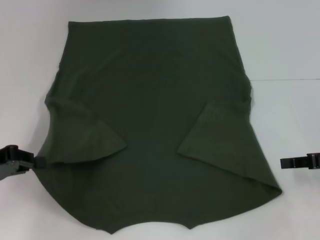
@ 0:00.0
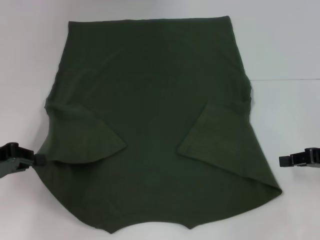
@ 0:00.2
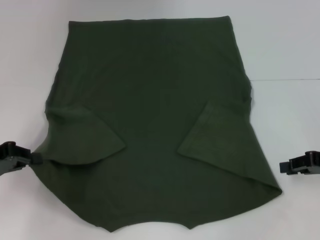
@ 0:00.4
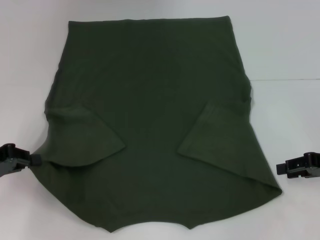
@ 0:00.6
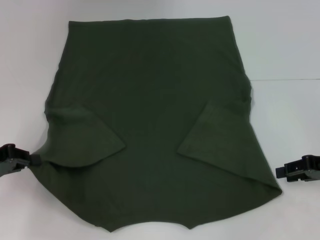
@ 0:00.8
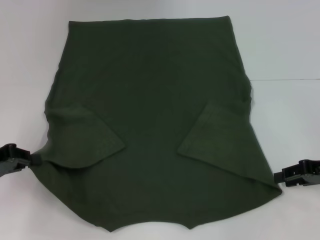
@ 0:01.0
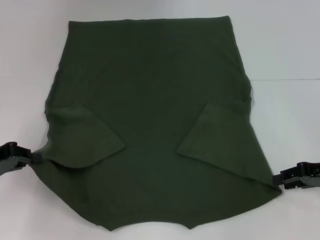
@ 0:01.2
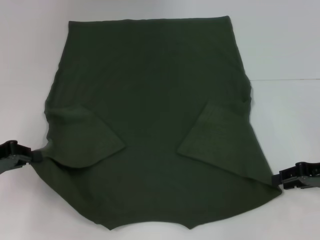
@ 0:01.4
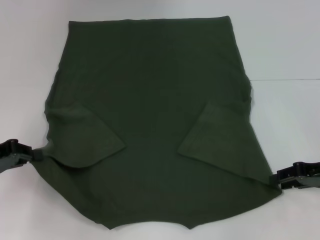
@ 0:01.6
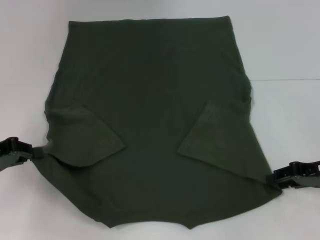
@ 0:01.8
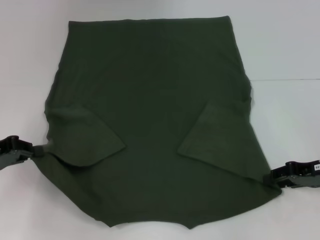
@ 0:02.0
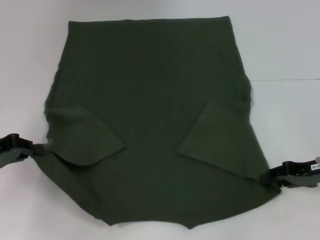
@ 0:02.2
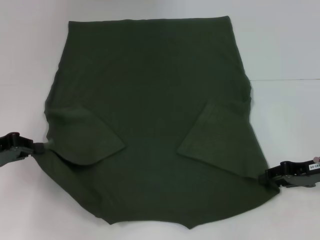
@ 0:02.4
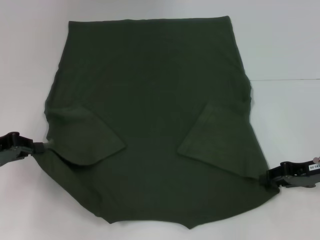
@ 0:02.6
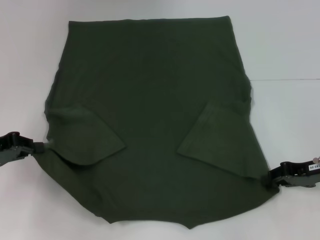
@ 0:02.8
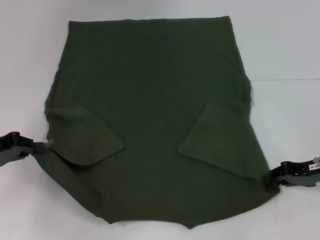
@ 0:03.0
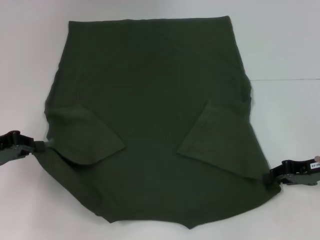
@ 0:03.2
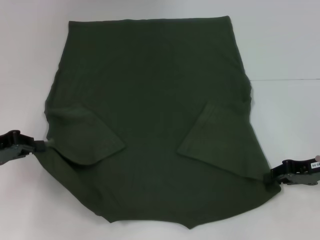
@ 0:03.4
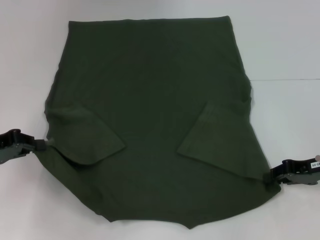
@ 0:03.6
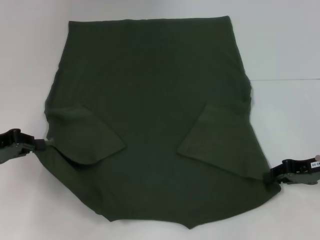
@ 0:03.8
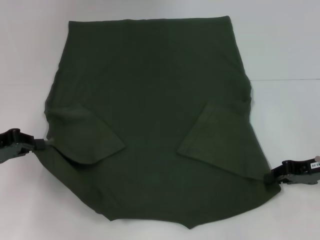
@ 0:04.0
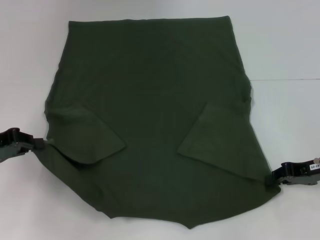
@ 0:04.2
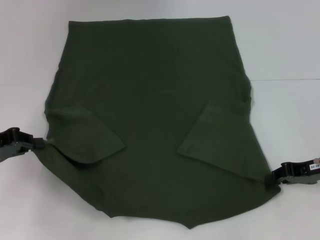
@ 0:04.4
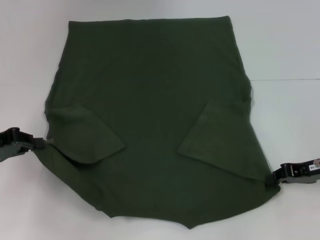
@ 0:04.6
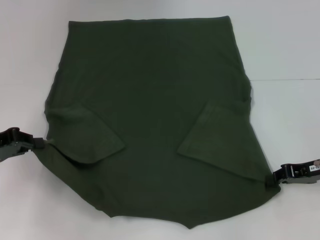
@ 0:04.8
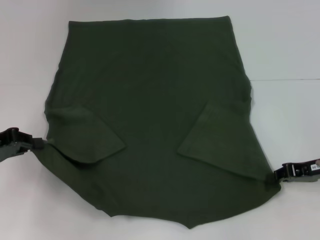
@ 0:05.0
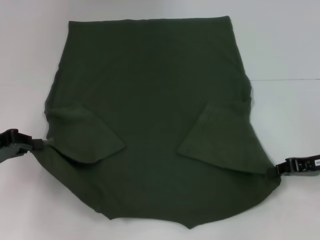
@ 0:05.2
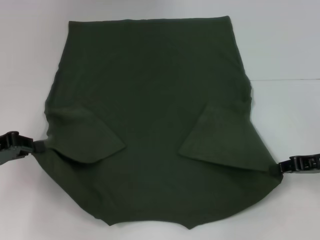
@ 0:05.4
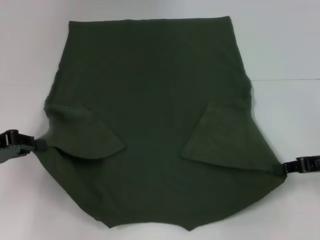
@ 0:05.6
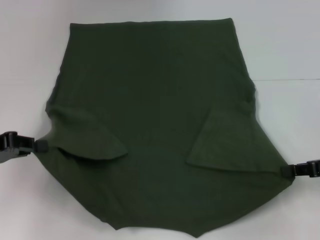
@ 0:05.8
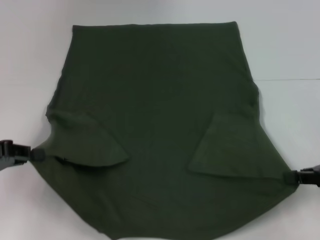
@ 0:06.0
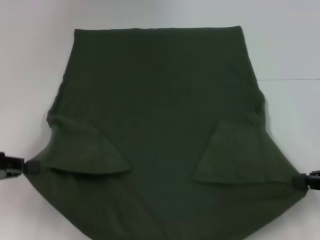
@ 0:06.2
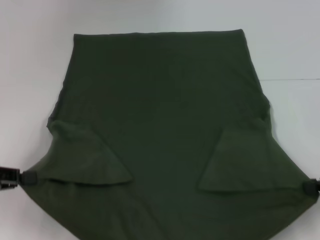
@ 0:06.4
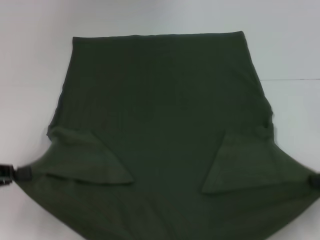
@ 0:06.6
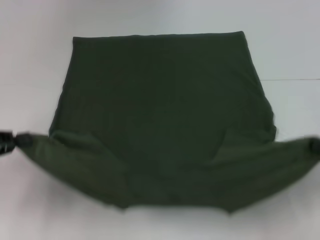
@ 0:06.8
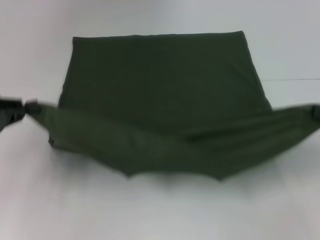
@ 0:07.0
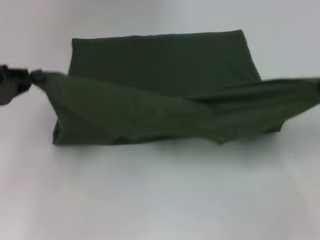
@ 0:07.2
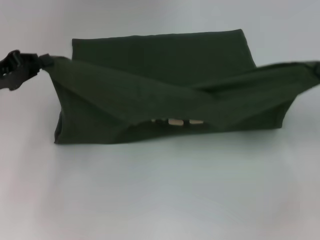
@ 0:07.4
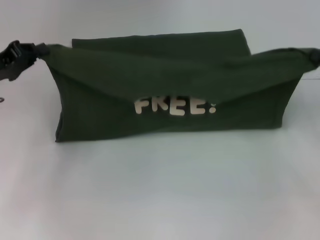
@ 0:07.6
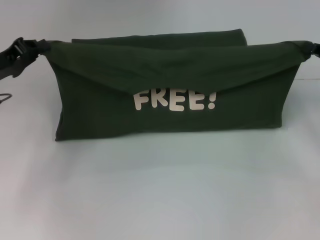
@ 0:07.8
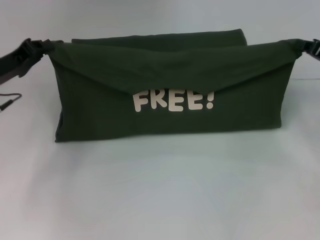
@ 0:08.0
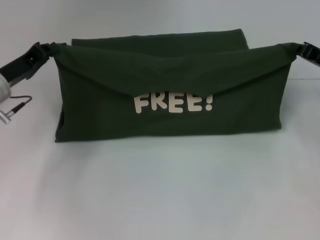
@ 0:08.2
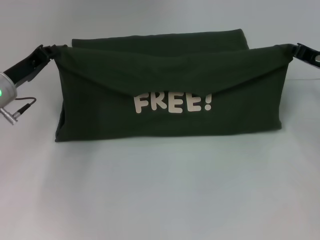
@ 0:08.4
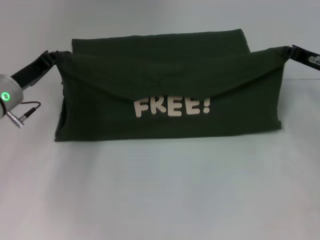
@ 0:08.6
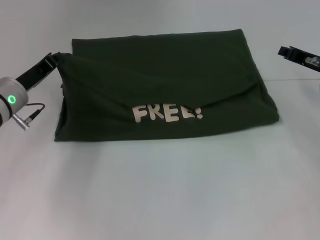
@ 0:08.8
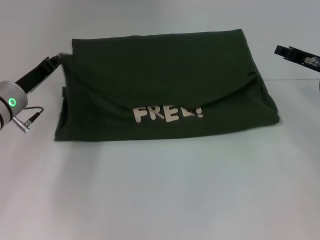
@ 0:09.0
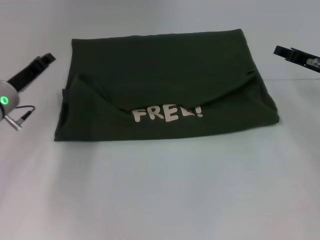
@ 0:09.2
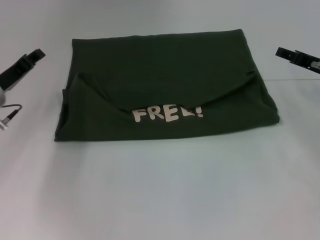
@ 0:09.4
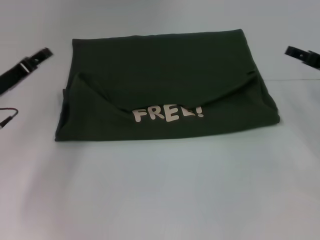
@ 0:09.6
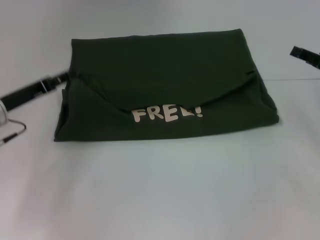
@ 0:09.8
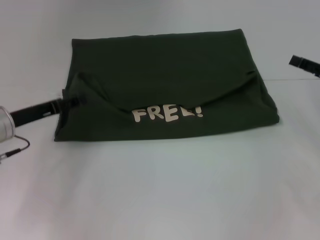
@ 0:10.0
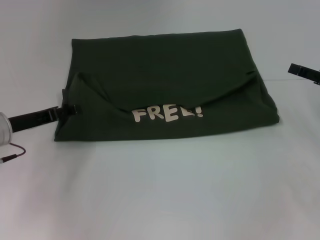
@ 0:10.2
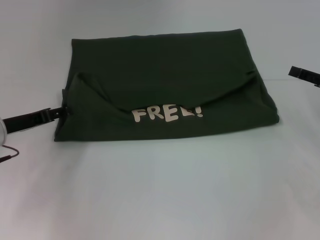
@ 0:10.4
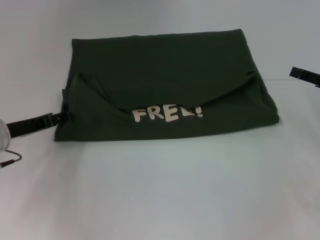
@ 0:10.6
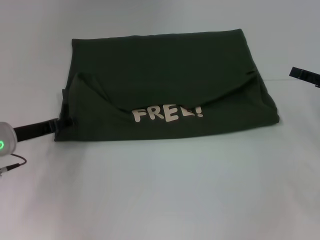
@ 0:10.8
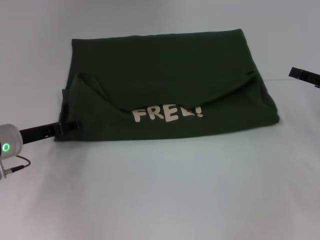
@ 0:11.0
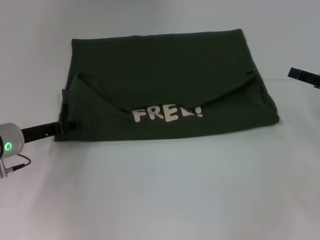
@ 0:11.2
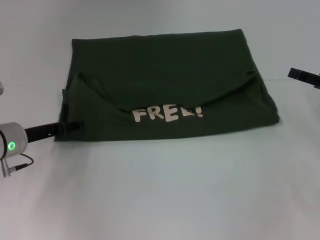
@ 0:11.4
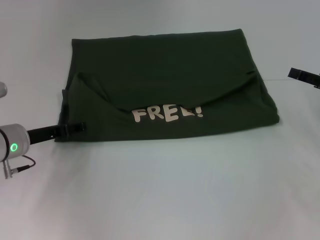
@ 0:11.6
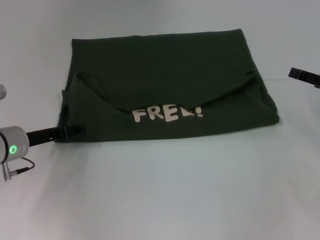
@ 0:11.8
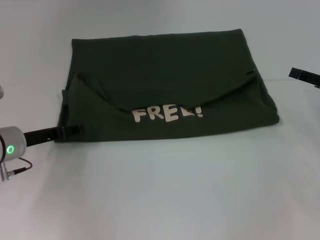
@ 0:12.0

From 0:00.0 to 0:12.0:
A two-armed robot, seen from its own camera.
Step, from 0:00.0 to 0:05.4: Grab the bottom right corner with your right hand.
Step, from 0:05.6 to 0:09.4: Fold the clothes with your left hand.
Step, from 0:05.6 to 0:09.4: Fold the clothes with your right hand.
From 0:01.6 to 0:03.0: The grippers make only small movements.
From 0:03.0 to 0:04.4: Both grippers stay about where they are.
From 0:04.4 to 0:06.0: The right gripper moves approximately 5 cm.
From 0:06.0 to 0:07.6: Both grippers travel together forward, about 10 cm.
From 0:07.6 to 0:09.0: The left gripper goes some 10 cm to the right and downward; the right gripper goes approximately 10 cm to the left and forward.
From 0:09.0 to 0:10.4: The right gripper moves backward and to the right, some 10 cm, and opens up; the left gripper shifts by about 5 cm, and opens its fingers.
From 0:10.4 to 0:12.0: The grippers stay close to where they were, moving slightly.

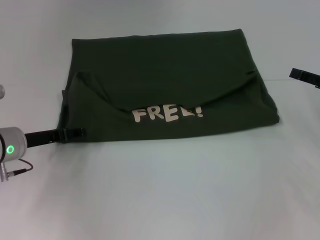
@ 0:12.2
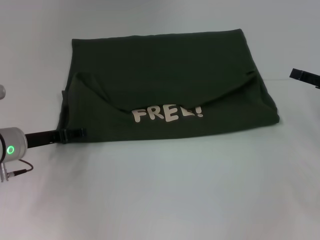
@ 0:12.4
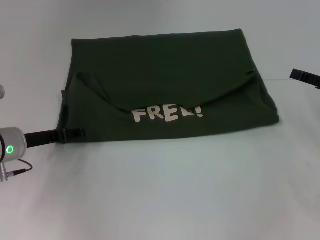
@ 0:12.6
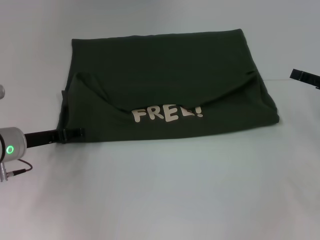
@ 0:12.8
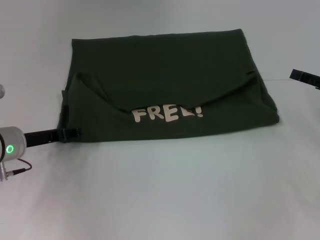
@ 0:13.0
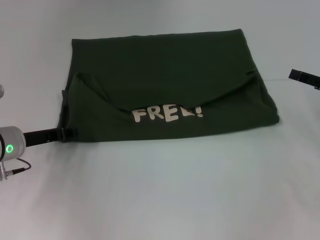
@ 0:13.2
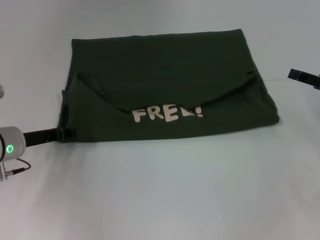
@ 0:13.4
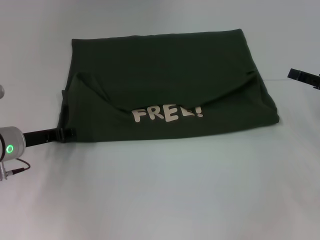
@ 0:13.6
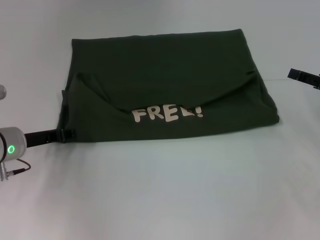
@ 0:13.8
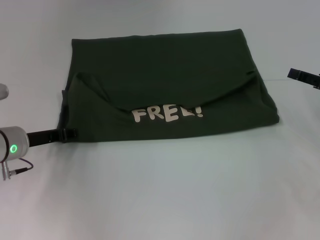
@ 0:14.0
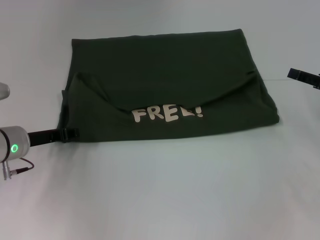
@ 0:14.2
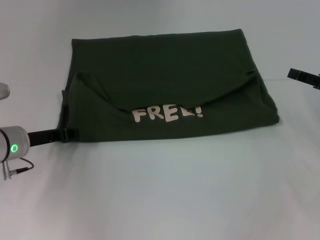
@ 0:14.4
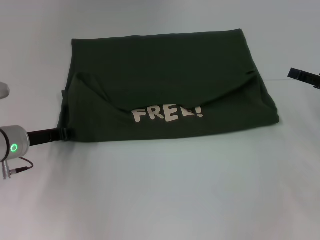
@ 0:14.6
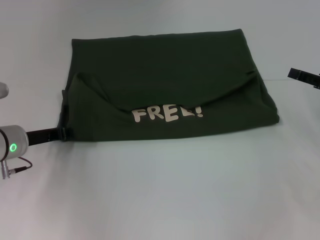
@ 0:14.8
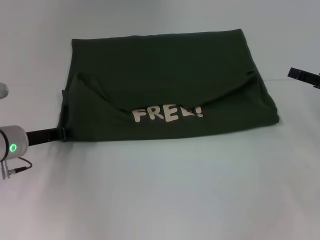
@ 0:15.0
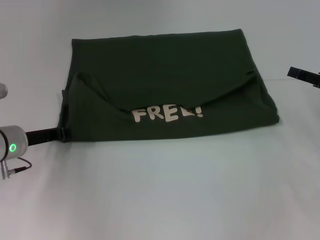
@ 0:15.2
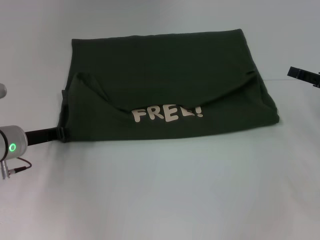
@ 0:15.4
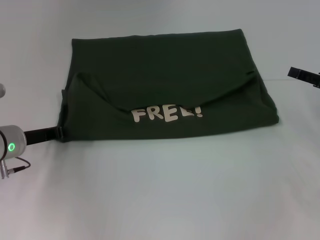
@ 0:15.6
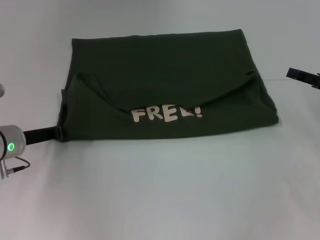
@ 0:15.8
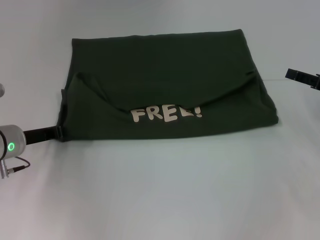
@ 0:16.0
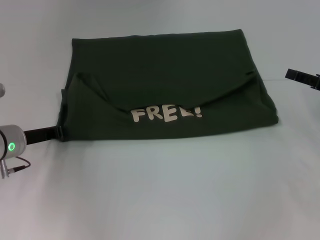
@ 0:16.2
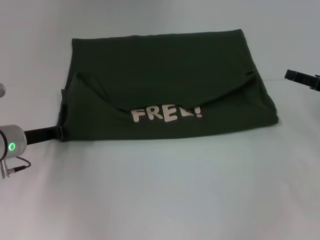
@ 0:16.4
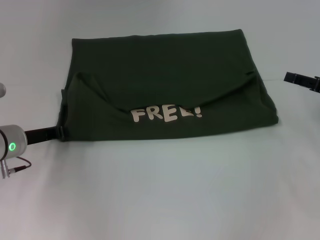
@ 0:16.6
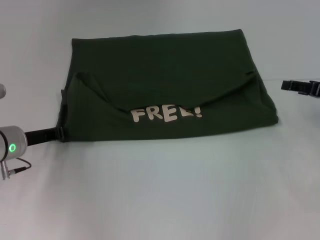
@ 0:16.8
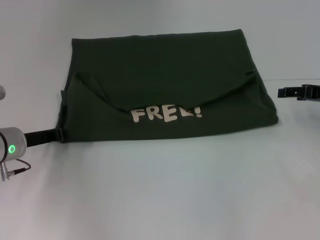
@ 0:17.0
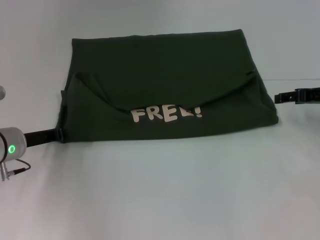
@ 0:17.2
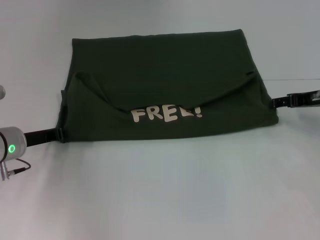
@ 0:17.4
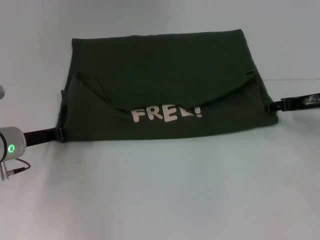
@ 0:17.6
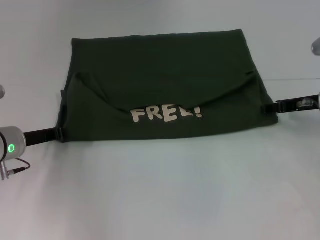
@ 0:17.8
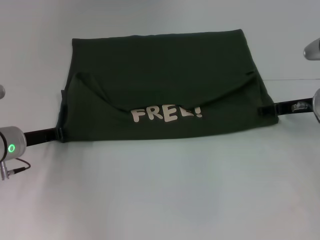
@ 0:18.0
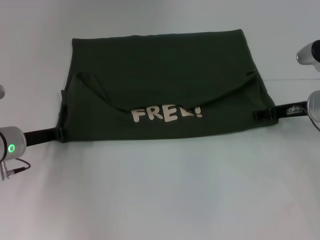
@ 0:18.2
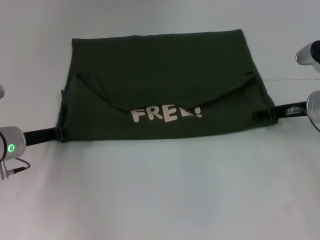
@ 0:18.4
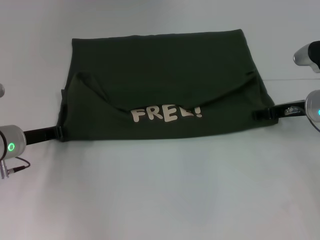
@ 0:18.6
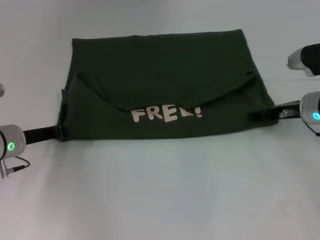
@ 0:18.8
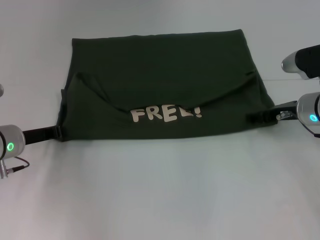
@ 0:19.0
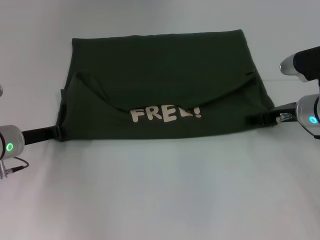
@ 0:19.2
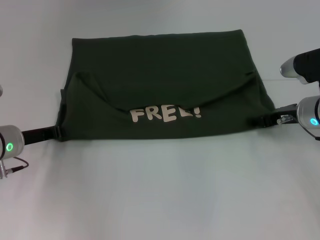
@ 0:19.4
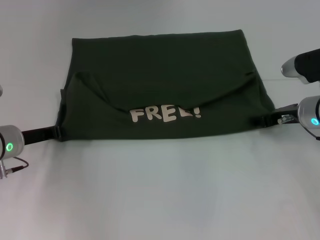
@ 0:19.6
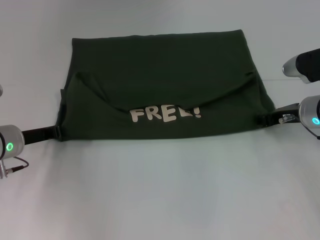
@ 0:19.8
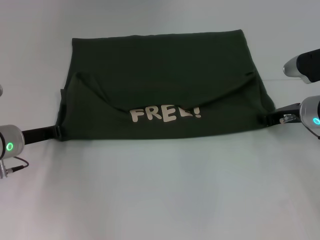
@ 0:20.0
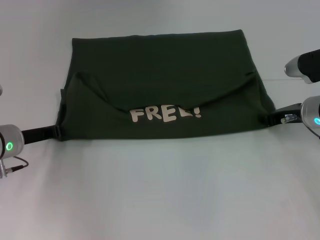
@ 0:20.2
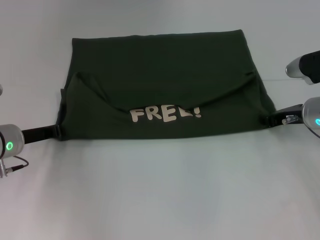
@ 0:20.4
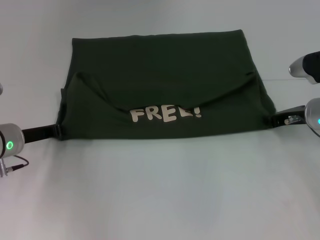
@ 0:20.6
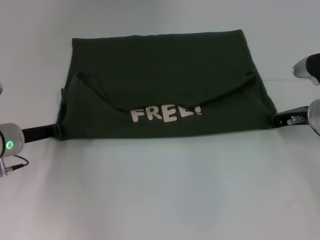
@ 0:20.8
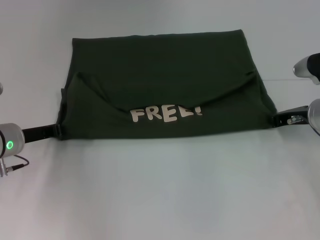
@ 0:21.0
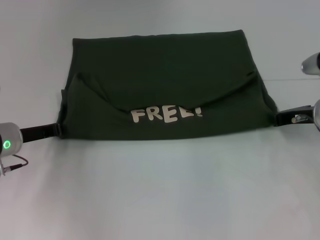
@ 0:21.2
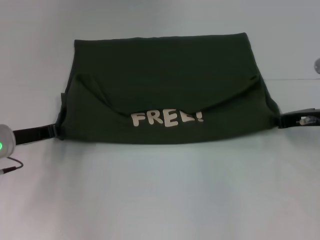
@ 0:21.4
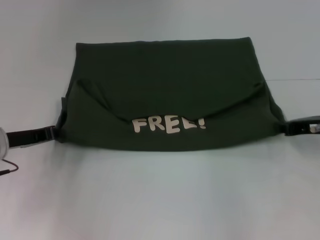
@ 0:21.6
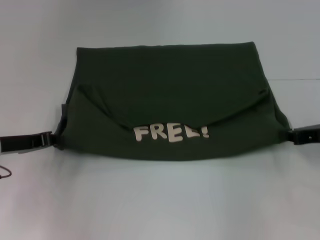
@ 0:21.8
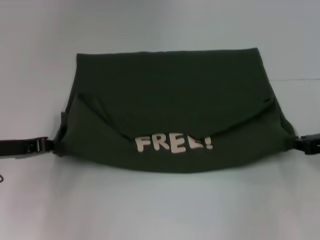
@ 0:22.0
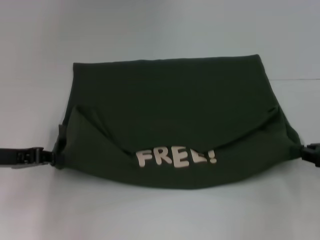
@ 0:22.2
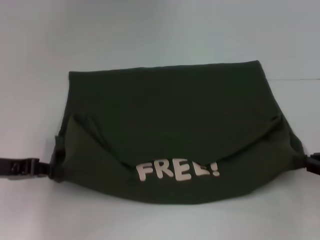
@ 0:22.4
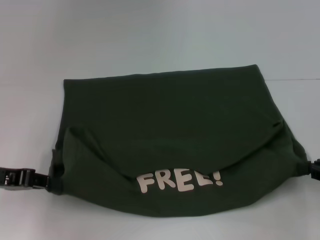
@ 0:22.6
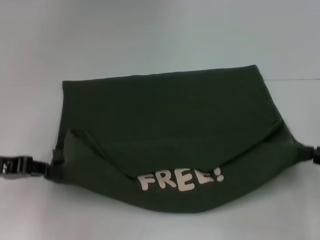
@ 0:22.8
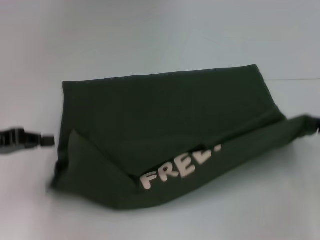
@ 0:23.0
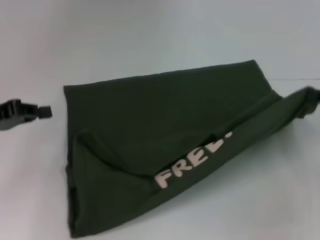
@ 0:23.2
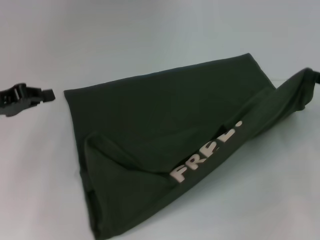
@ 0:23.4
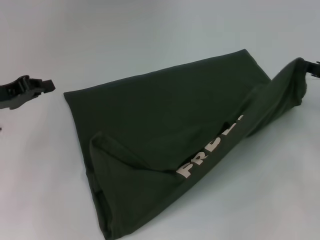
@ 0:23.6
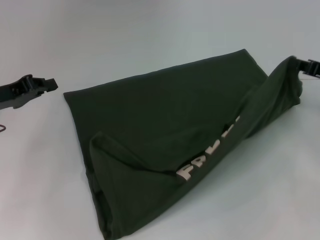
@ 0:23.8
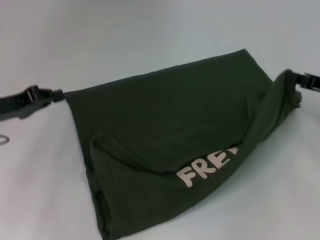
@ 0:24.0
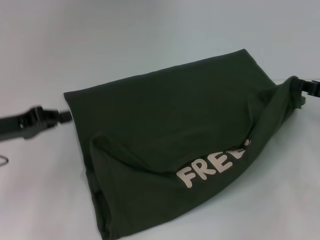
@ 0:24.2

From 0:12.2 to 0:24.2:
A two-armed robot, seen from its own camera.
From 0:13.8 to 0:16.6: The two grippers keep their place.
From 0:16.6 to 0:18.2: The right gripper goes some 10 cm to the left.
From 0:18.2 to 0:19.8: The grippers make only small movements.
From 0:19.8 to 0:21.2: The right gripper closes its fingers.
From 0:21.2 to 0:22.6: The left gripper moves backward and upward, roughly 10 cm. The right gripper is displaced backward and to the right by some 15 cm.
From 0:22.6 to 0:24.2: The right gripper travels forward by some 10 cm.
